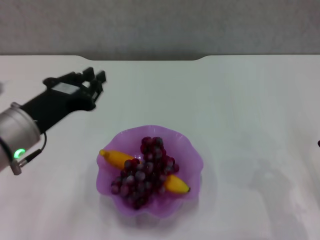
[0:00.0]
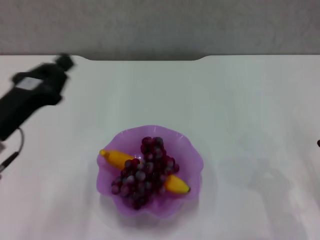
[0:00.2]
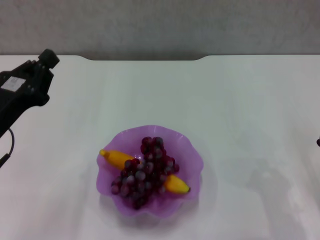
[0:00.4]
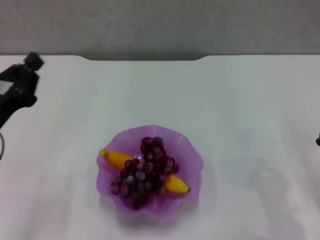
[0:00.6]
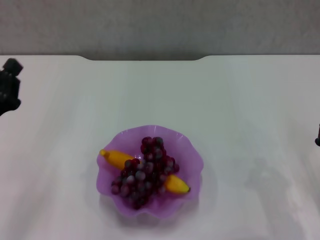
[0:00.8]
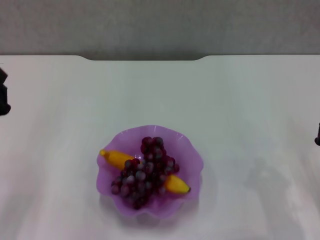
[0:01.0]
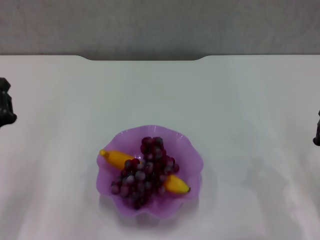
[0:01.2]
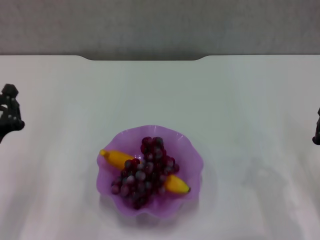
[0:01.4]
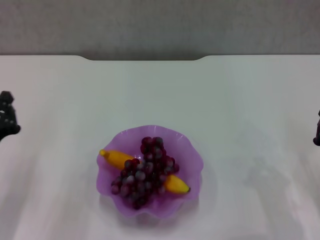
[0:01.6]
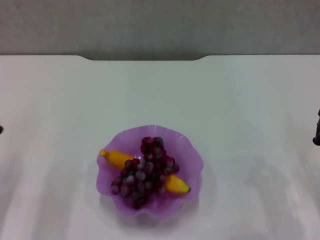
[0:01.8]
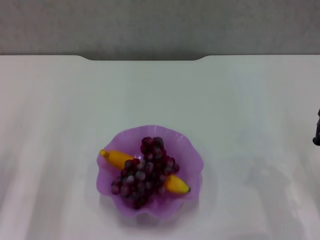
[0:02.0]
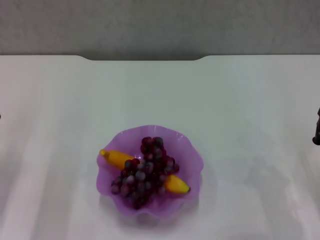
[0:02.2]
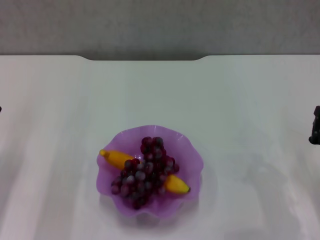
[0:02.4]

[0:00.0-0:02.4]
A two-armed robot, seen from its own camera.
0:00.0 to 0:01.2: The left gripper goes about 10 cm to the left and downward, and closes up.
0:01.2 to 0:02.4: The grippers move only a little.
